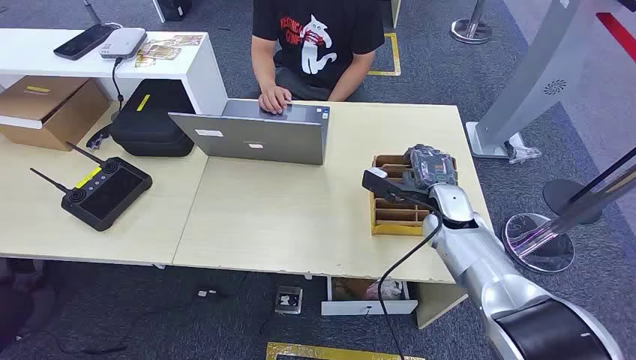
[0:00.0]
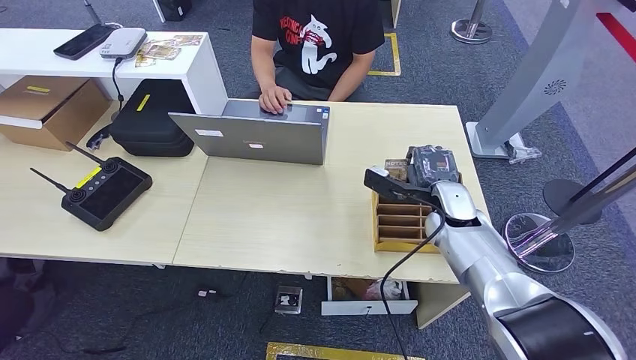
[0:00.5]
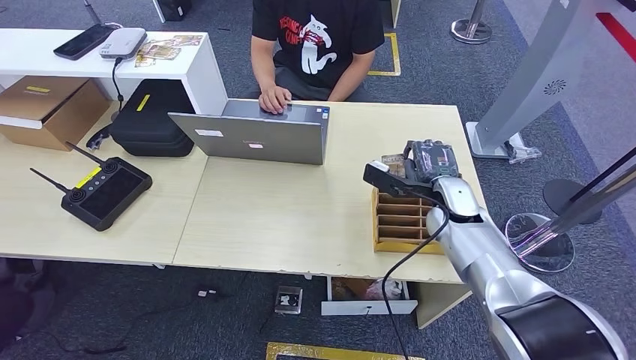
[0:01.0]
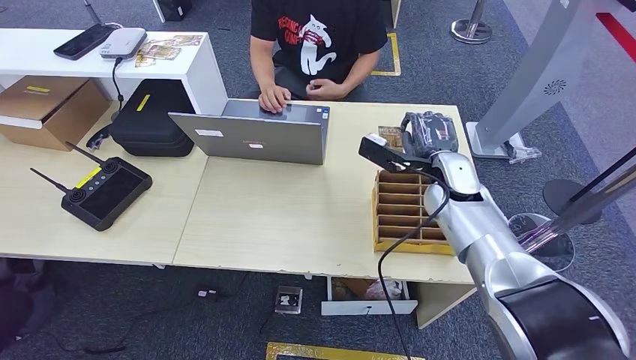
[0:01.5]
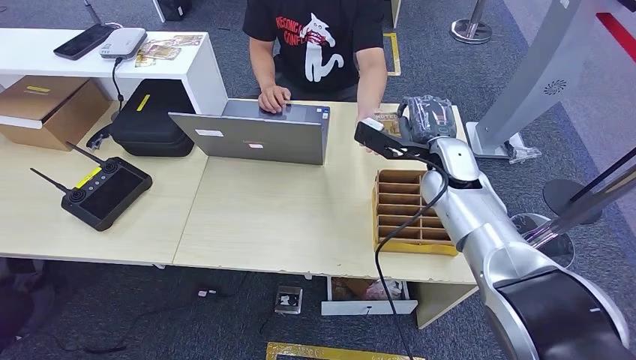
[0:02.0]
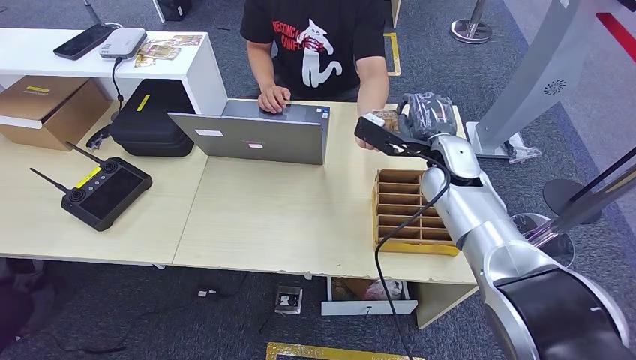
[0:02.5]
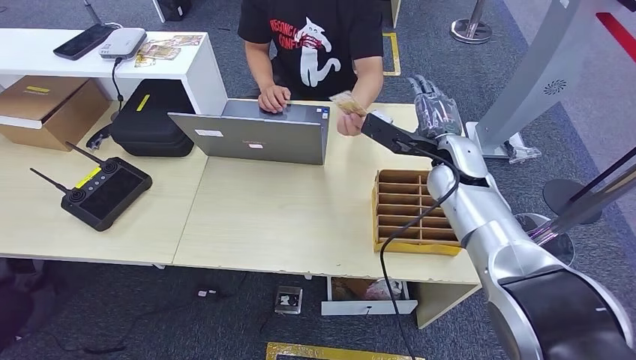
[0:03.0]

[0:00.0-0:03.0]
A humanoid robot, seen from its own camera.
Step, 0:00.0 to 0:01.5: Pick up the room card from the card holder.
Step, 0:02.0 to 0:03.0: Hand the room card to the target.
0:01.5 to 0:03.0: The hands make only small movements.
